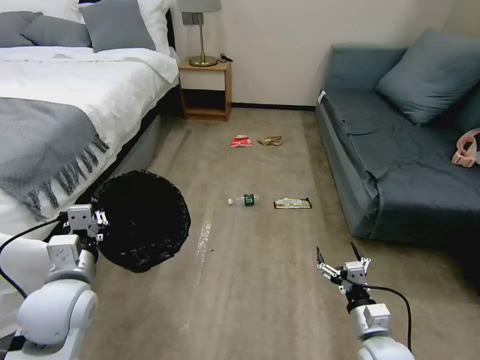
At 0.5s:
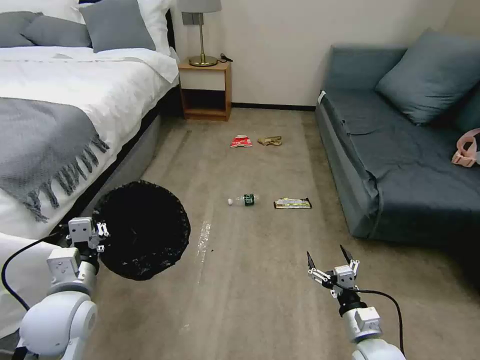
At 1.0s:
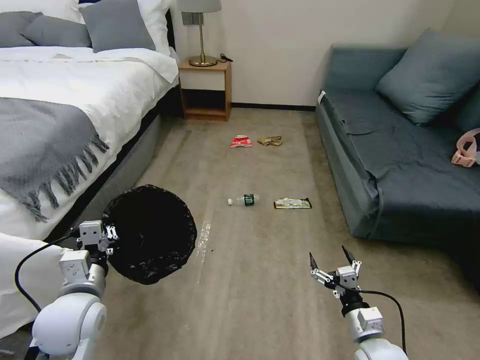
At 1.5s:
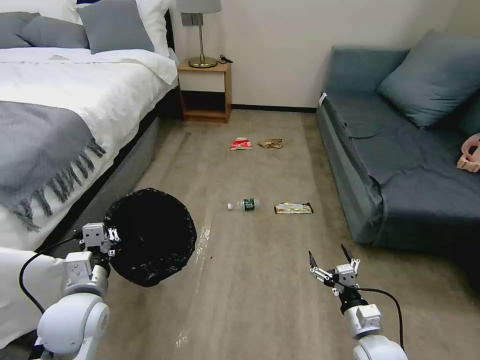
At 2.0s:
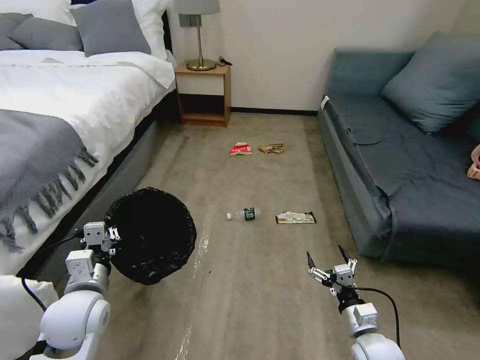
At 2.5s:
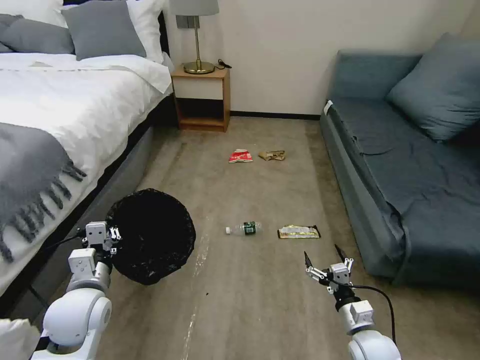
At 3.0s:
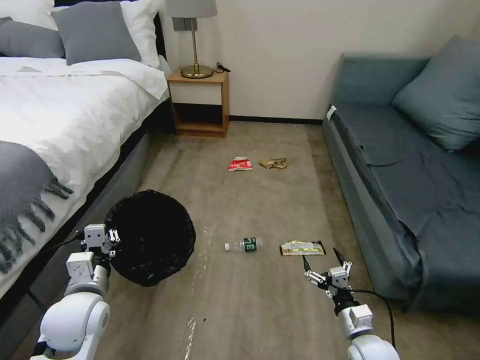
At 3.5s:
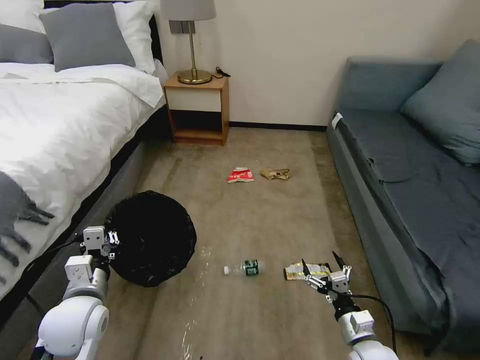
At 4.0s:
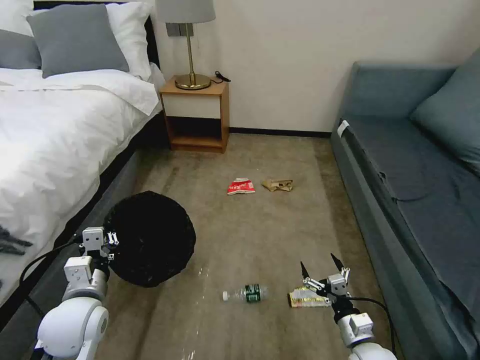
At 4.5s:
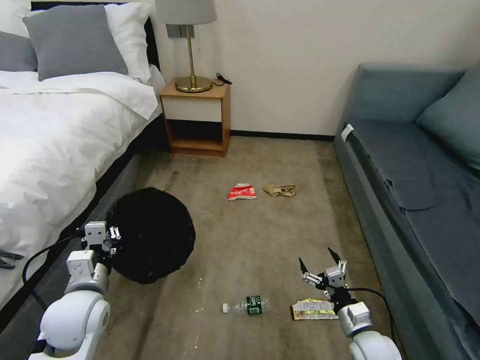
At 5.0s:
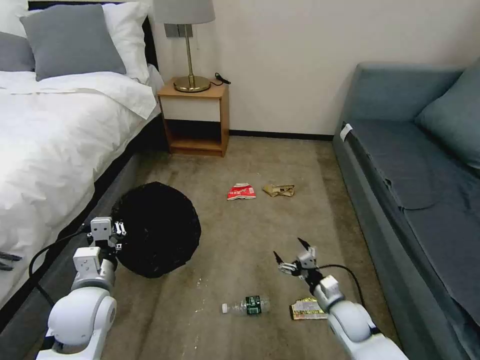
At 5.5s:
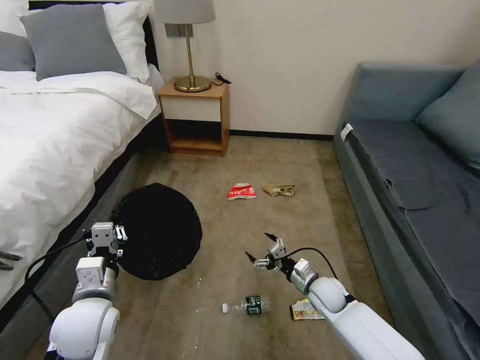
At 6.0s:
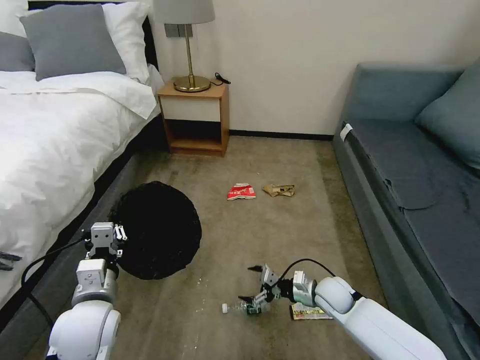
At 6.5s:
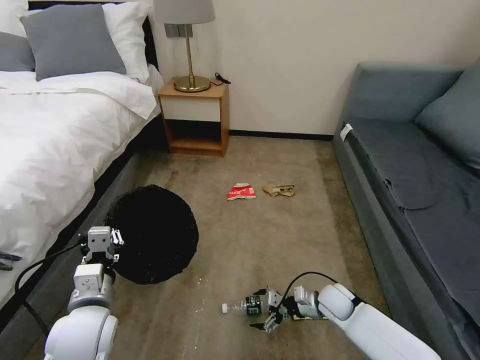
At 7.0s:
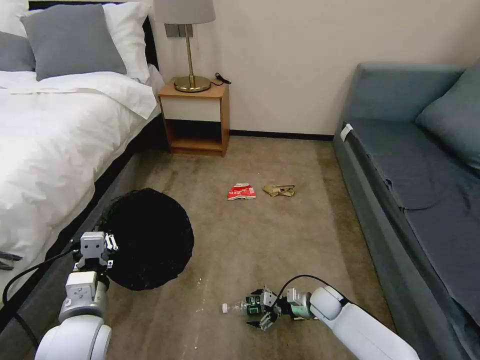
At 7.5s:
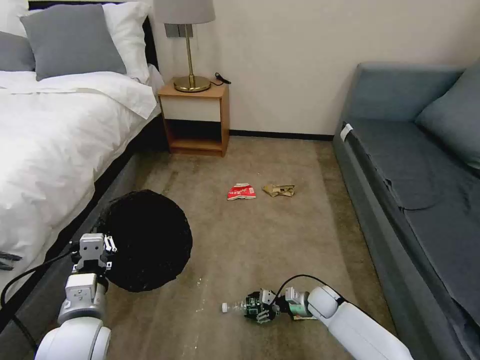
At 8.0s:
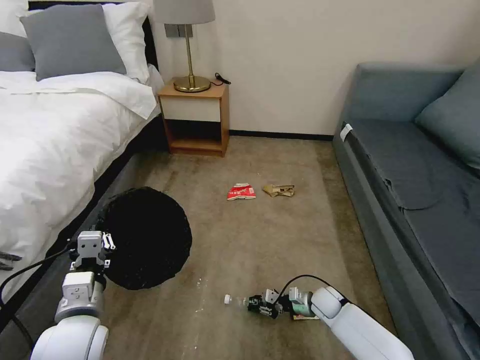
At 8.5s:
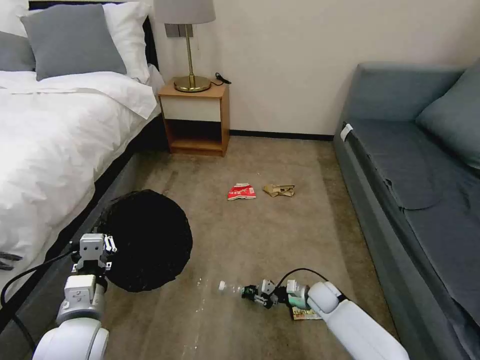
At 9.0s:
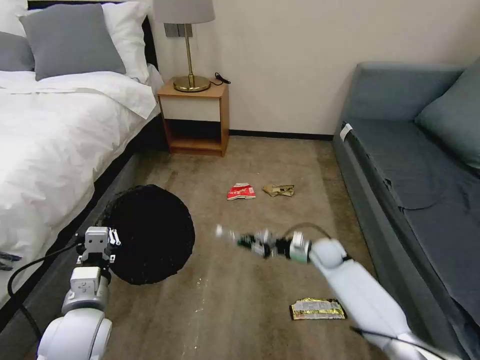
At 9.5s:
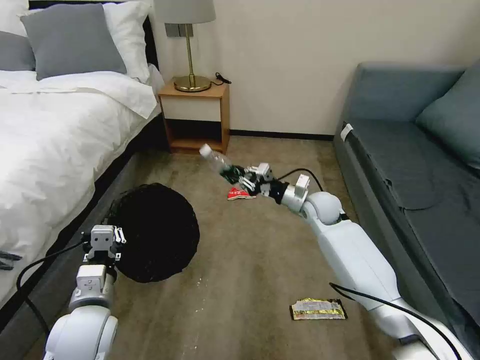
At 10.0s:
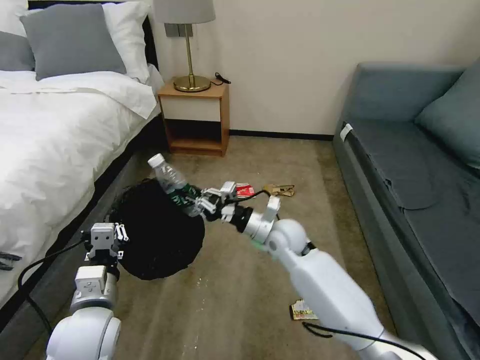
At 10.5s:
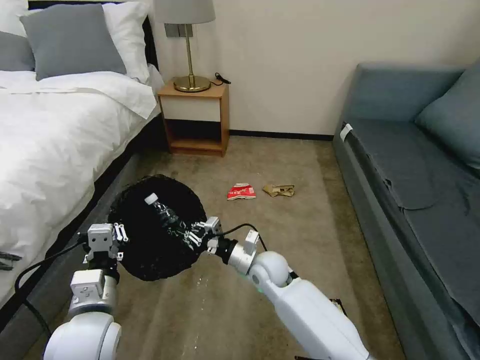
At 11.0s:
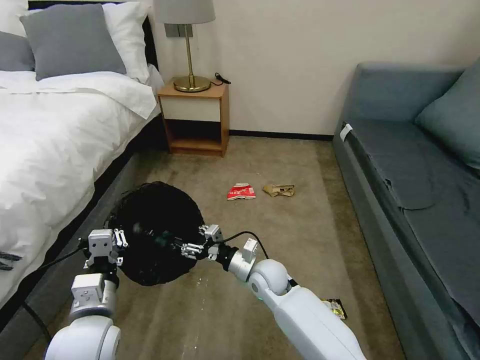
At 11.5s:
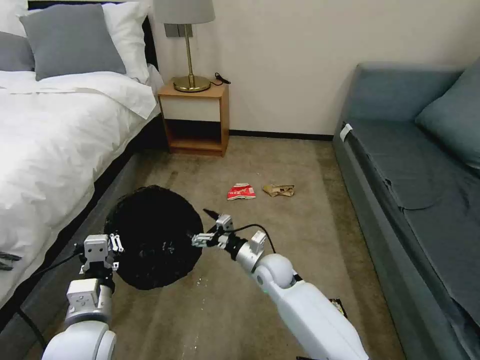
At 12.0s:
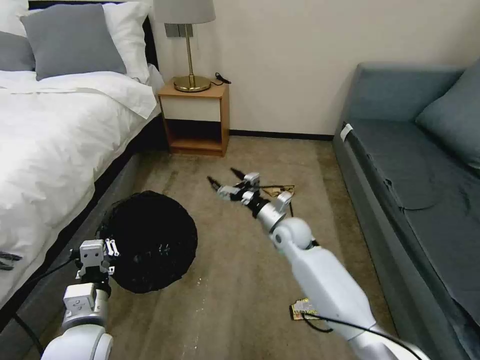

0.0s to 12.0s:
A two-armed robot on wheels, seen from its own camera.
Task of the whole recording: Pick up the trash bin, then pick up the garbage on the floor and place it into the trash bin.
0.0s to 2.0s: The left gripper is displaced downward by roughly 5 cm.
4.0s to 6.0s: The right gripper moves forward, some 15 cm.
6.0s to 8.0s: The right gripper travels downward by some 10 cm, and closes.
8.0s to 10.0s: The right gripper is displaced upward and to the left by roughly 30 cm.
10.0s to 12.0s: The right gripper opens its fingers.

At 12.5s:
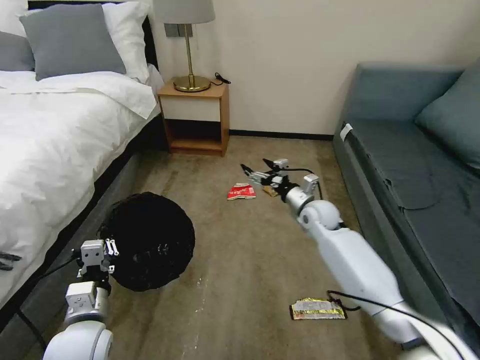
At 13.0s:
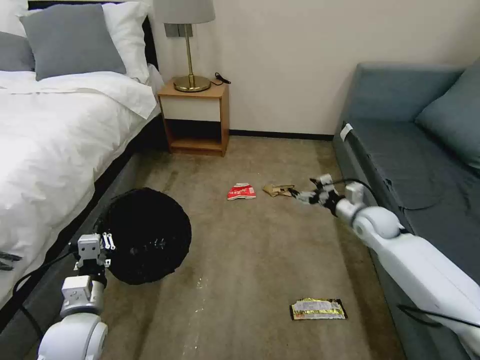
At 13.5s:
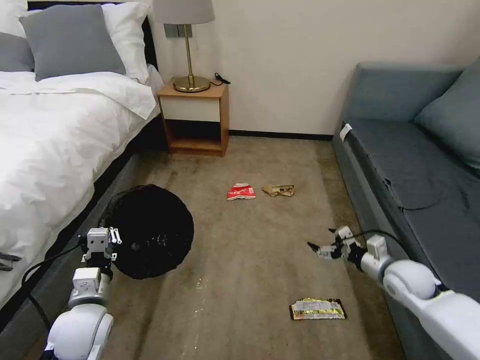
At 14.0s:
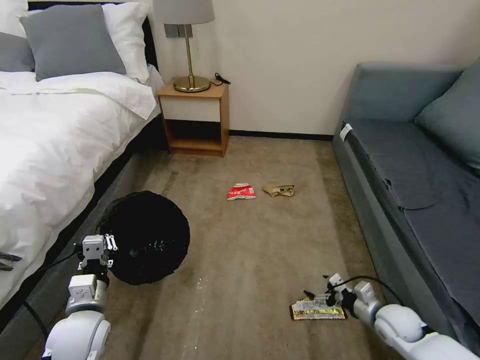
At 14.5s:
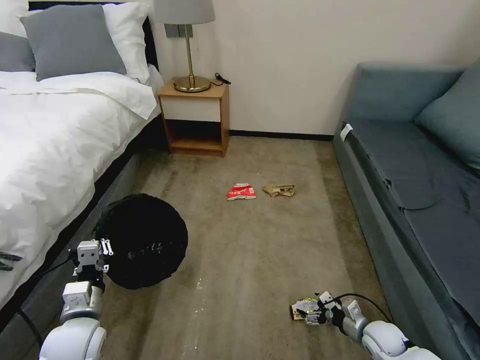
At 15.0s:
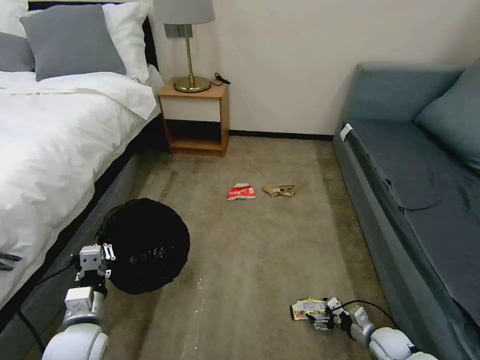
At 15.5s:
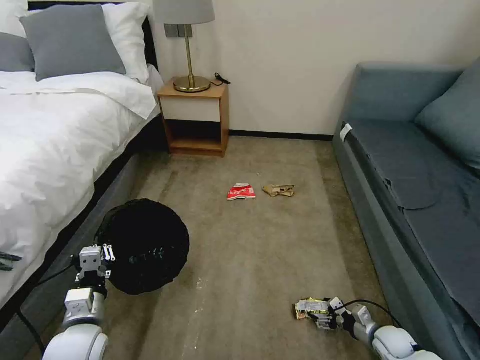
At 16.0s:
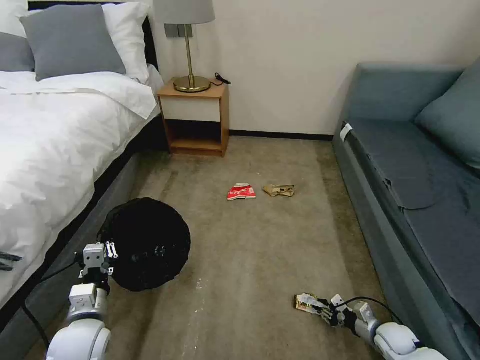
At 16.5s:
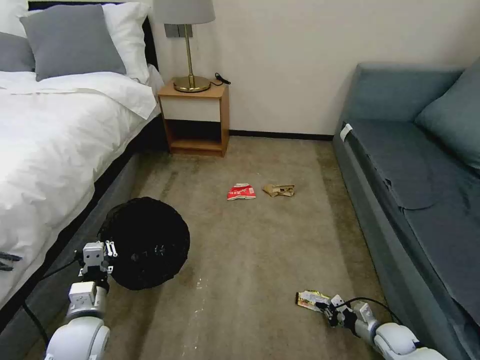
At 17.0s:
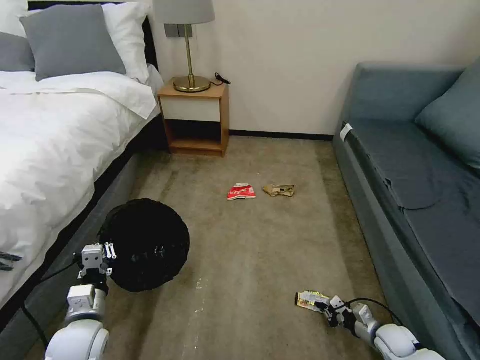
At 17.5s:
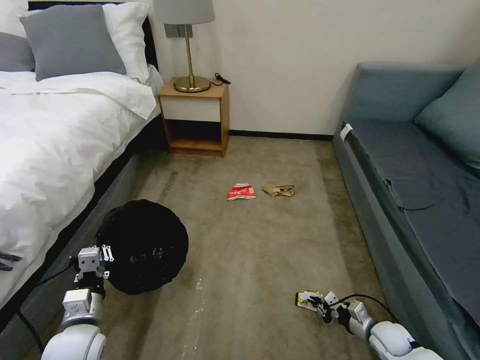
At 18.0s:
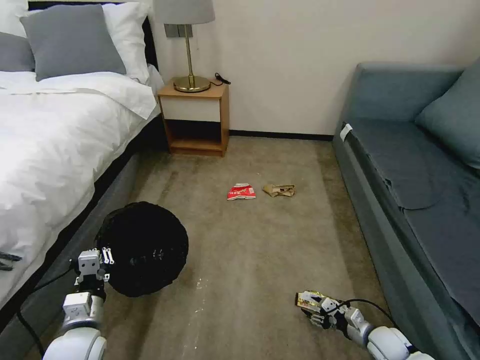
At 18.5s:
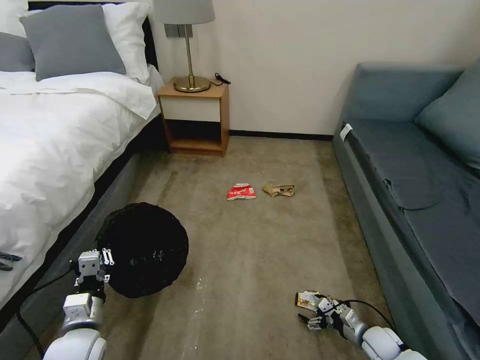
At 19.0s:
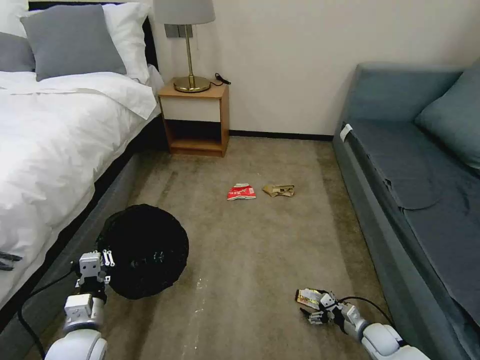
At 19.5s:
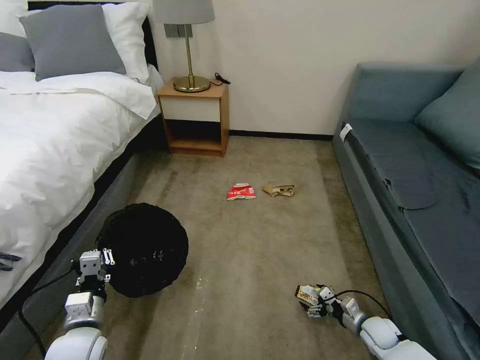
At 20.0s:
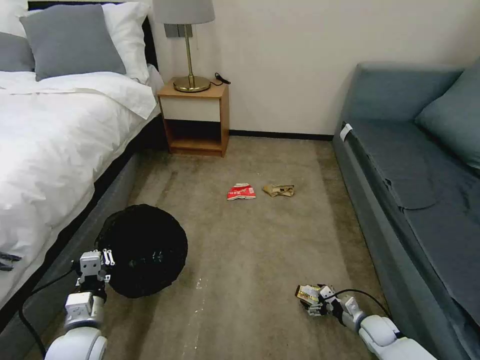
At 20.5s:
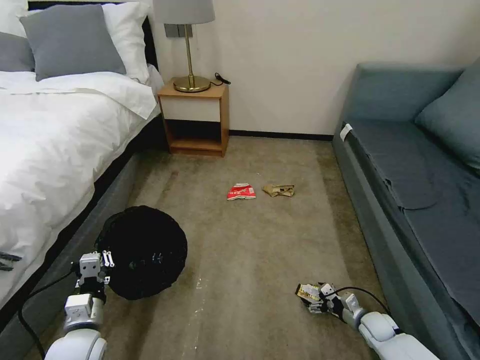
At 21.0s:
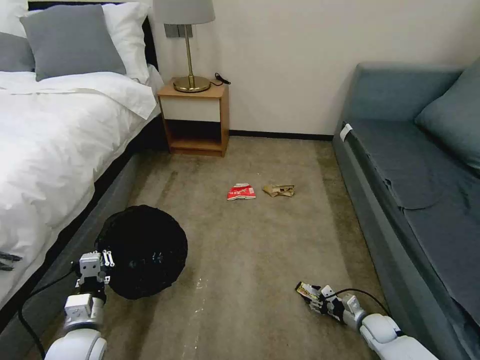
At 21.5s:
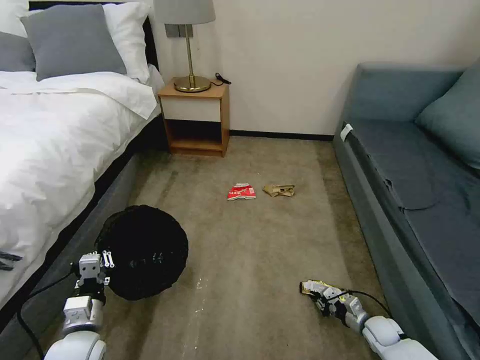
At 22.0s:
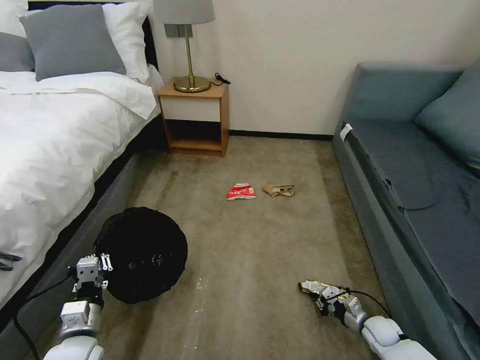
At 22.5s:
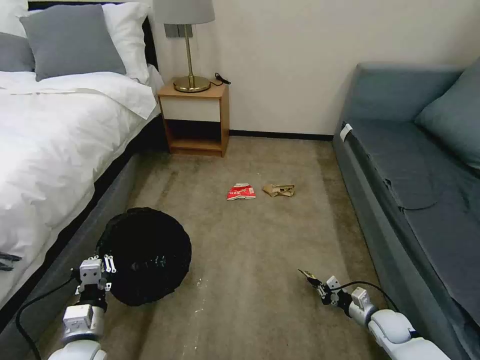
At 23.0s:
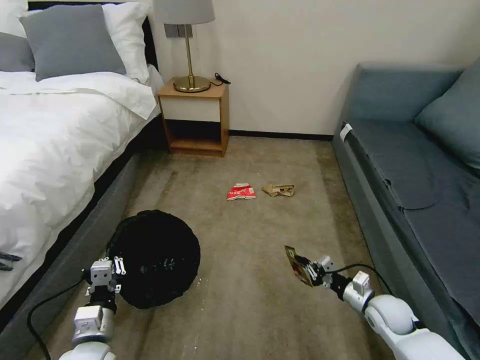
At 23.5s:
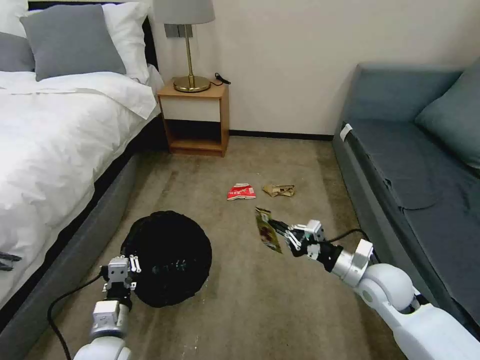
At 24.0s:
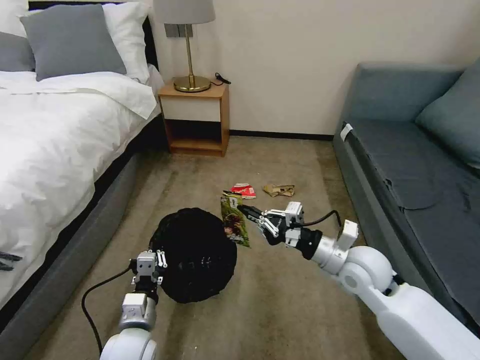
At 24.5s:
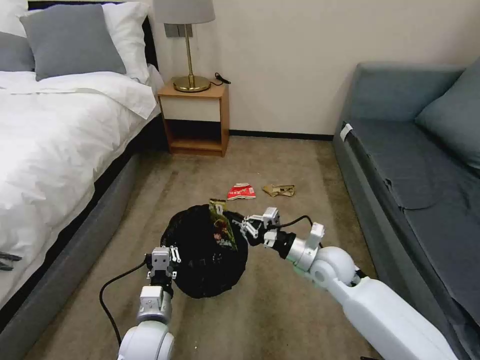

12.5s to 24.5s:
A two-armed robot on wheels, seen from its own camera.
Task of the whole recording: Pick up the trash bin, then pick up the garbage on the floor and place it into the trash bin.
12.5s to 14.5s: The right gripper shifts some 35 cm backward, downward and to the right.
14.5s to 16.5s: The right gripper changes place by approximately 5 cm, and closes up.
16.5s to 18.5s: The right gripper opens.
18.5s to 20.5s: The grippers make only small movements.
20.5s to 22.5s: The right gripper heads upward, covering approximately 5 cm, and closes its fingers.
22.5s to 24.5s: The left gripper heads to the right, covering approximately 15 cm. The right gripper heads upward and to the left, covering approximately 30 cm.

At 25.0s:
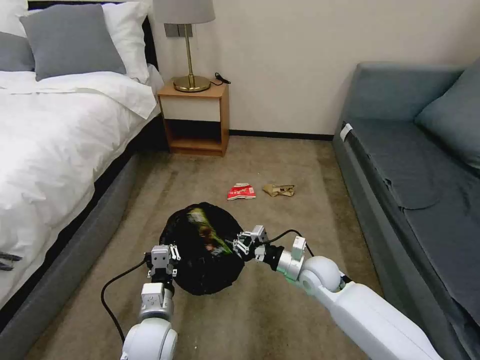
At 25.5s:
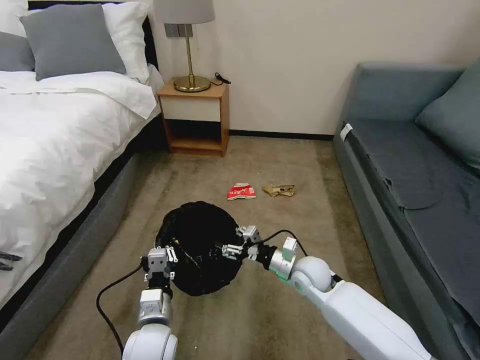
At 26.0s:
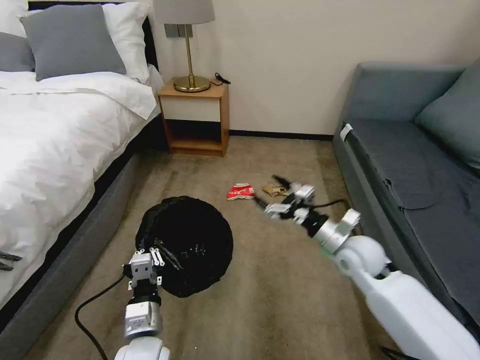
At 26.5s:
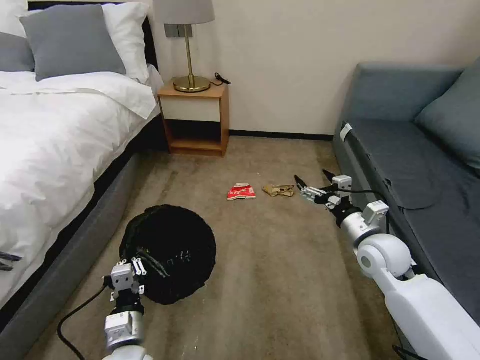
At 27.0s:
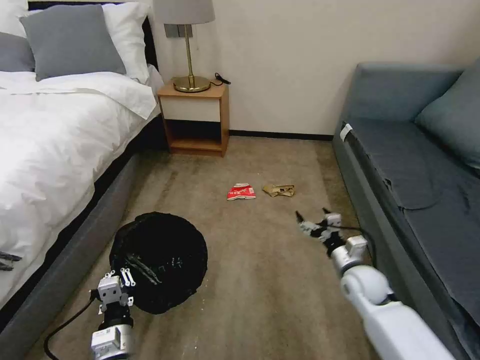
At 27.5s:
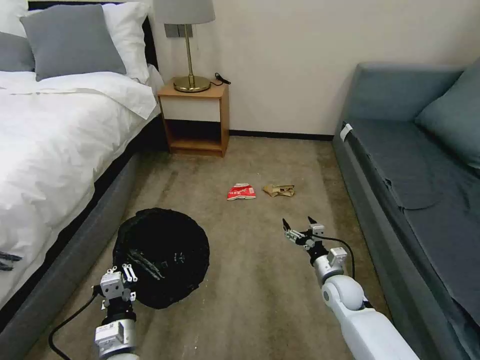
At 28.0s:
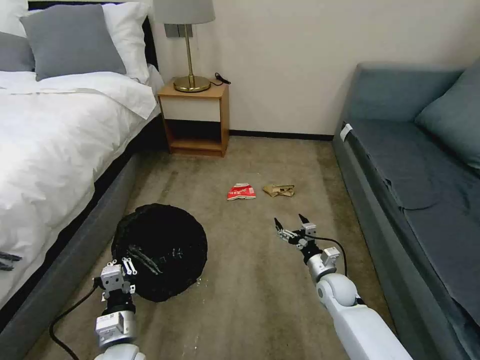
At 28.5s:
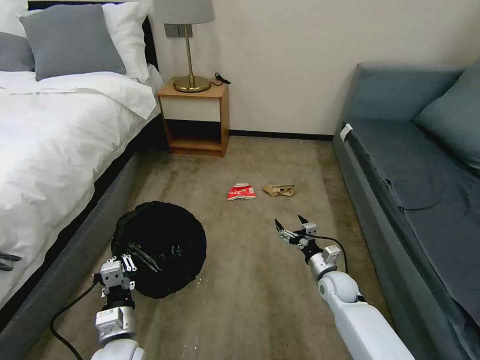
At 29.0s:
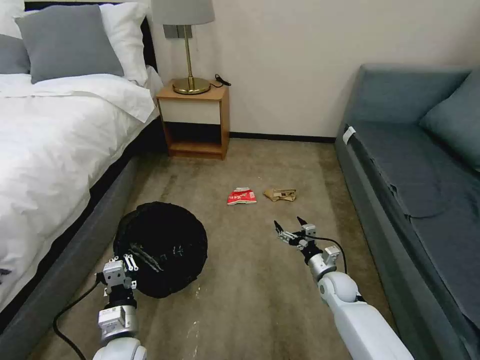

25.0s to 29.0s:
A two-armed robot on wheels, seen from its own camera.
Task of the whole recording: Pick up the trash bin, then pick up the garbage on the floor and place it into the trash bin.
25.0s to 27.0s: The right gripper heads to the right, covering roughly 10 cm, and opens up, while the left gripper shifts approximately 10 cm backward and to the left.
27.0s to 29.0s: The right gripper goes roughly 10 cm downward.
